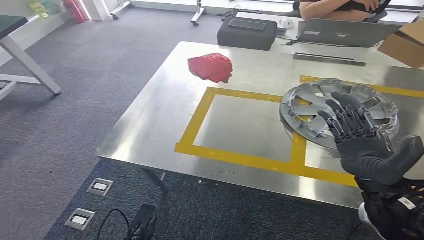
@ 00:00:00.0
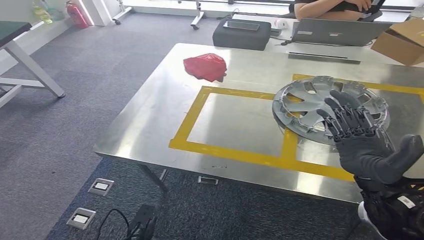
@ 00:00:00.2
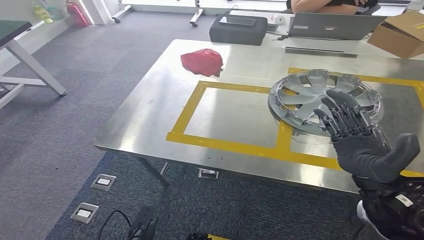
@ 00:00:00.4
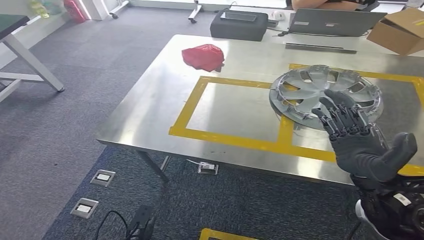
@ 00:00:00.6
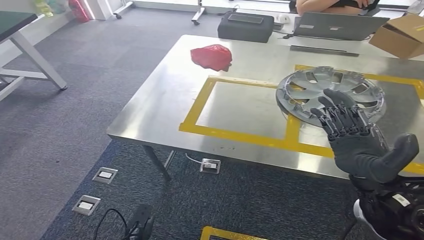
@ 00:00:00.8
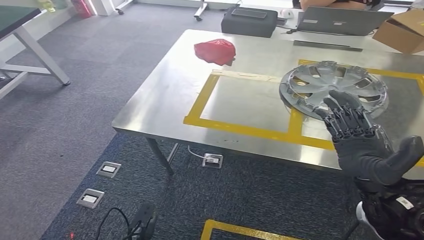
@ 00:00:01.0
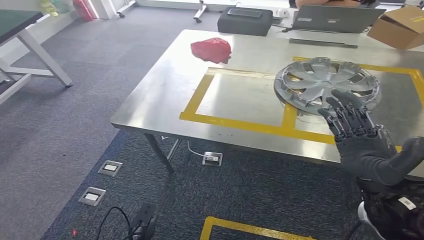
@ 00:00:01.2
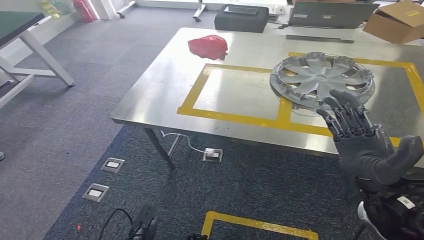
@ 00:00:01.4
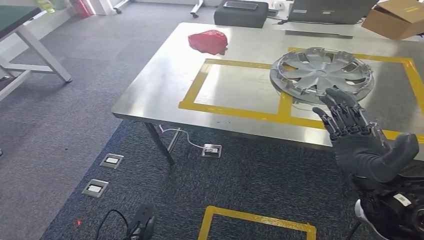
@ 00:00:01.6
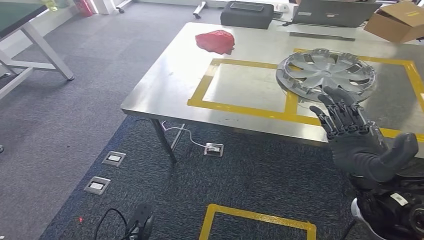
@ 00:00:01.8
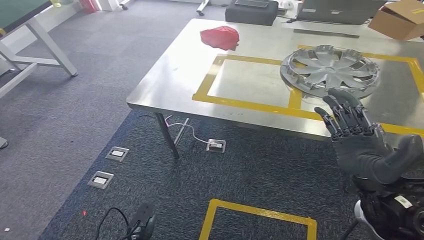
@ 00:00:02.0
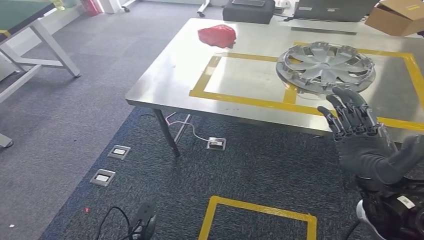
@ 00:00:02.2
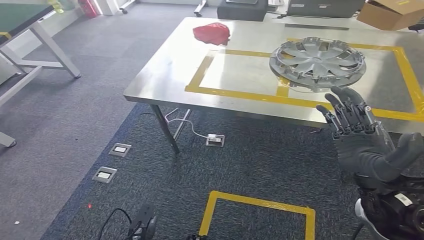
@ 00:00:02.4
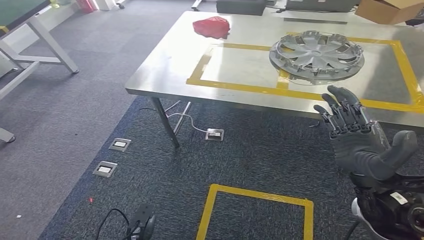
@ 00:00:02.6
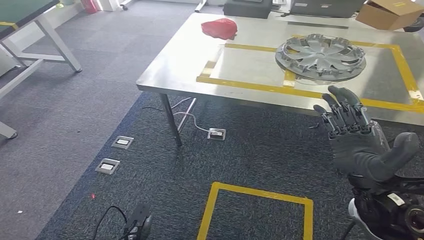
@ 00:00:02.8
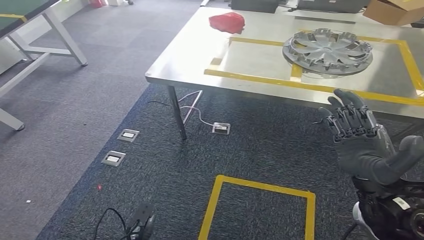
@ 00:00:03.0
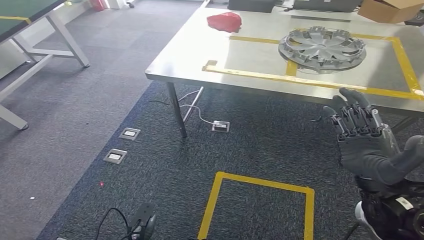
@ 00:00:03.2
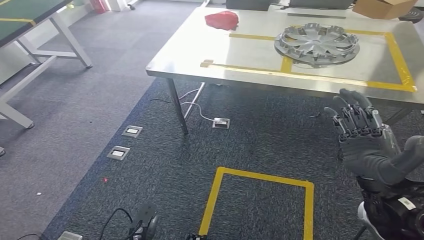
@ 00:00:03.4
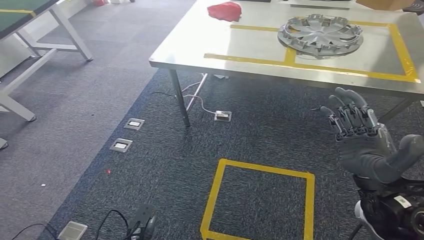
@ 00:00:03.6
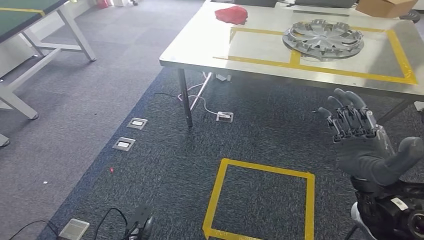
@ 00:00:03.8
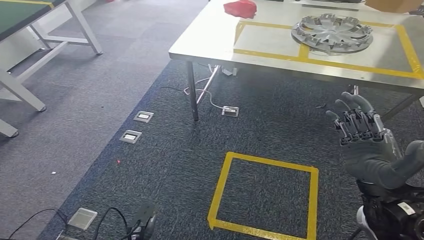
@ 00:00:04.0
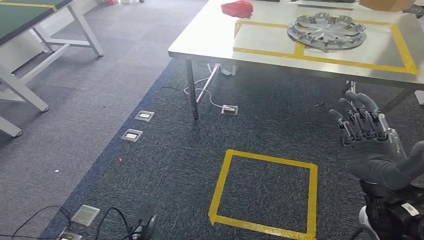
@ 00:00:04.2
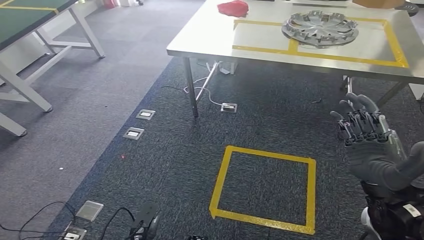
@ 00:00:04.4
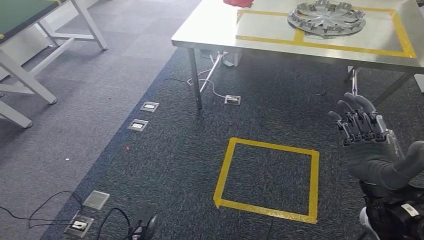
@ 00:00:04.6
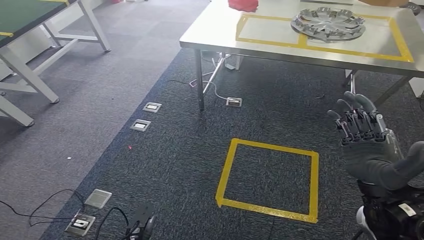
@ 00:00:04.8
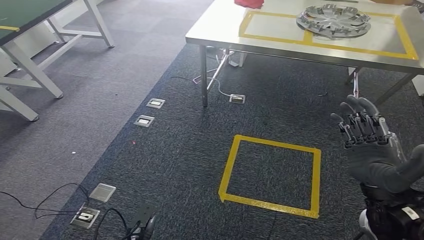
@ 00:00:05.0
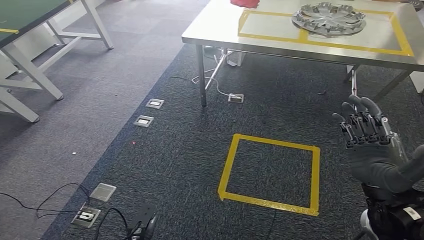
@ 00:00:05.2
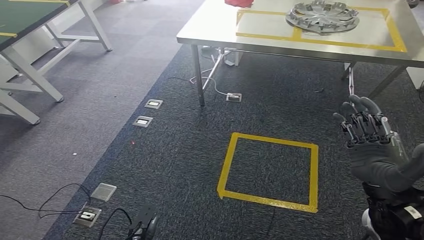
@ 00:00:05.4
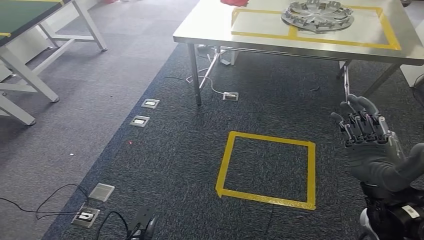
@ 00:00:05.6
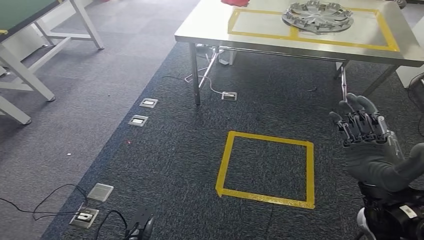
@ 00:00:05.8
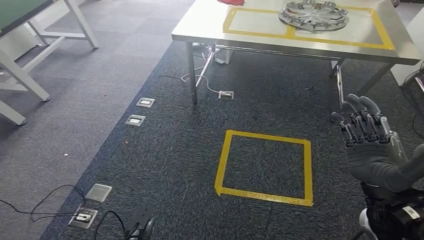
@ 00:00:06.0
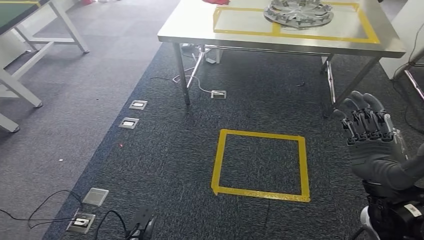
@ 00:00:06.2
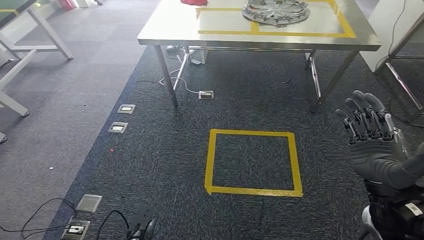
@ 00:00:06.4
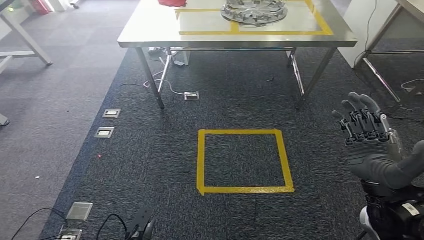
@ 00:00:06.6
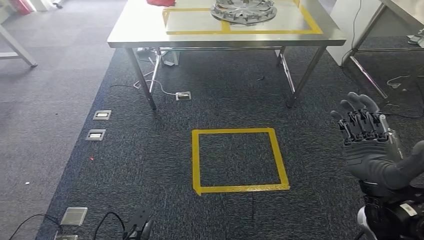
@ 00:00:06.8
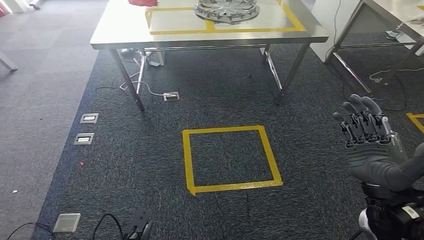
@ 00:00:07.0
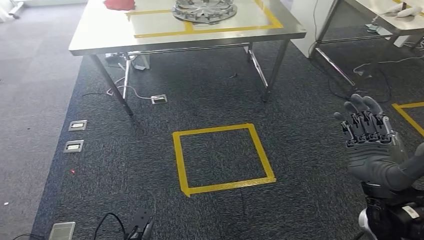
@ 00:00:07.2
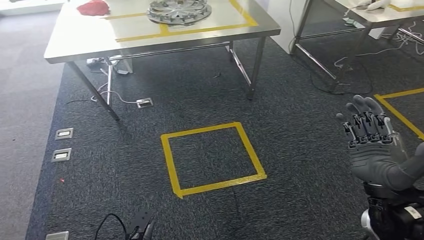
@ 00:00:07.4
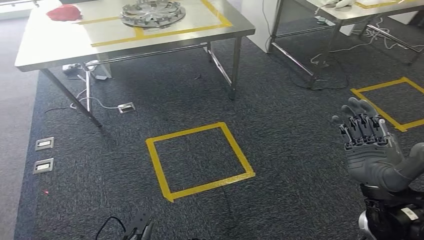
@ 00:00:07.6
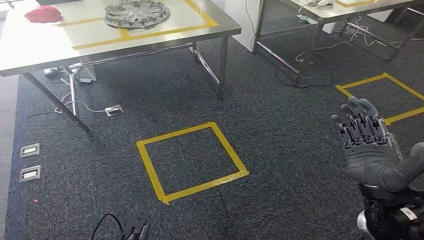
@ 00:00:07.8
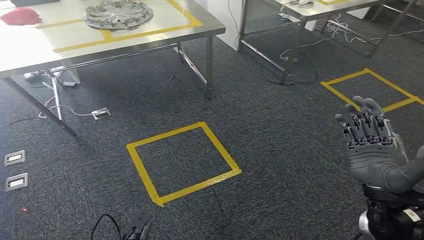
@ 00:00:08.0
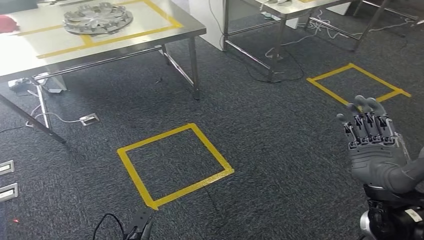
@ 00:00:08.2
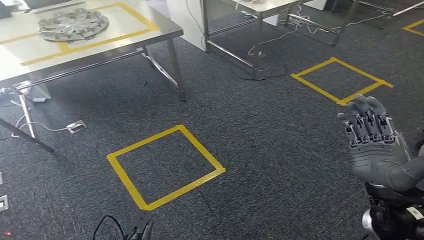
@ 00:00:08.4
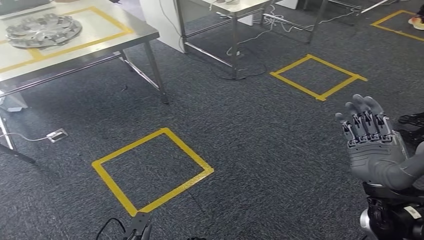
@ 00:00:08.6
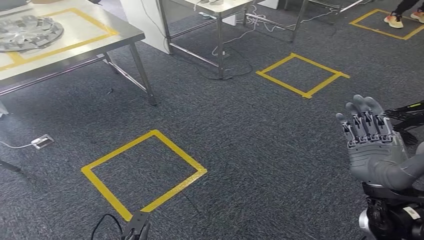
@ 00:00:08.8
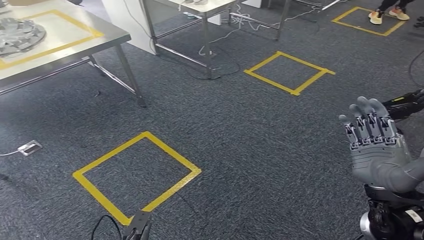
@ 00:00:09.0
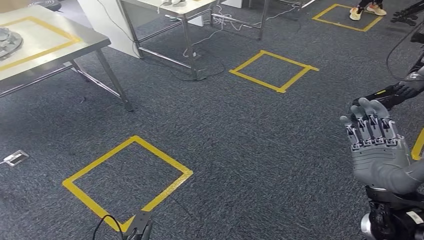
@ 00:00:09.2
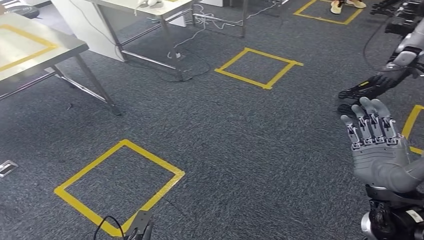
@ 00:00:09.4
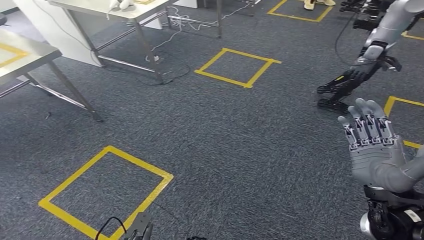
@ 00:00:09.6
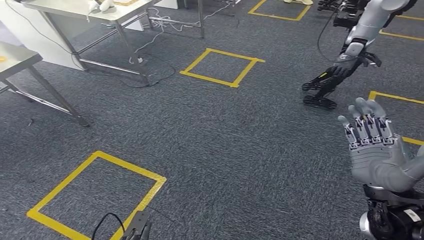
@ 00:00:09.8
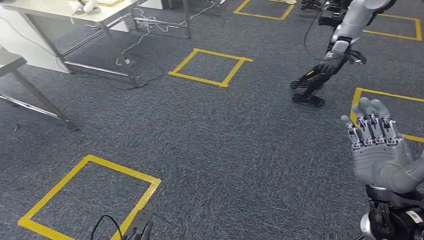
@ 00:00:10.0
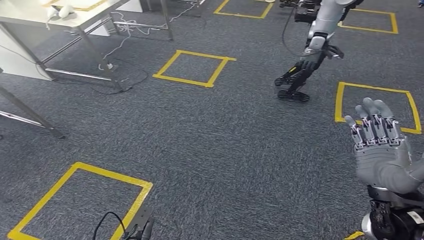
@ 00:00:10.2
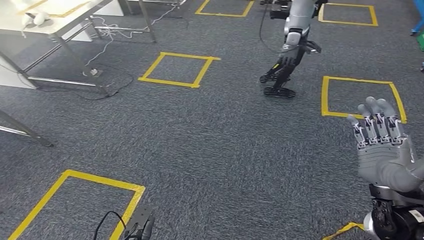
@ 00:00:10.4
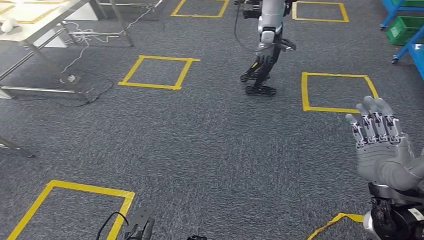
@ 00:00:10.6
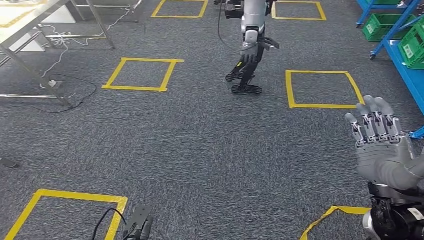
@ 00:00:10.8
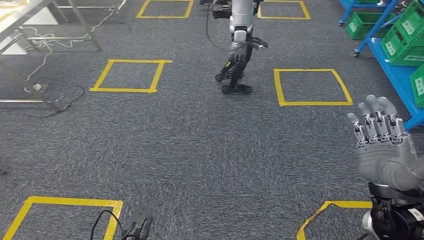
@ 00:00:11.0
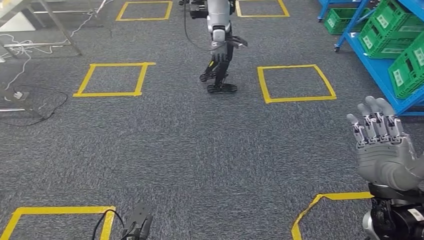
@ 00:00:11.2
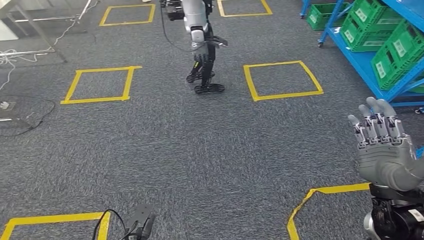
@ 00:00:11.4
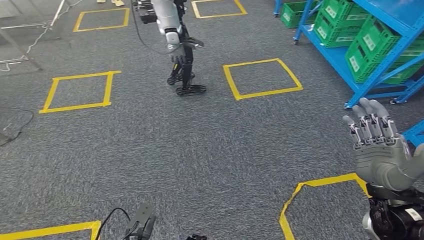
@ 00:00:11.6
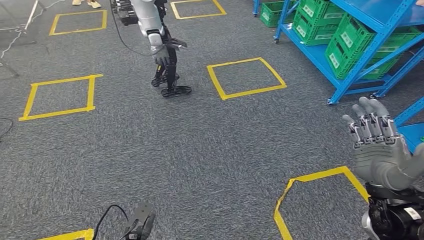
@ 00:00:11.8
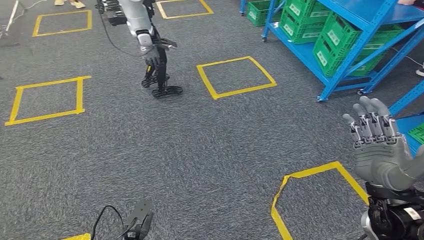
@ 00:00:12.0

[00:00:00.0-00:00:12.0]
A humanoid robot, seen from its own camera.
Step, 00:00:00.0 to 00:00:06.0: Insert the small component into the corresponding slot on the workbench.

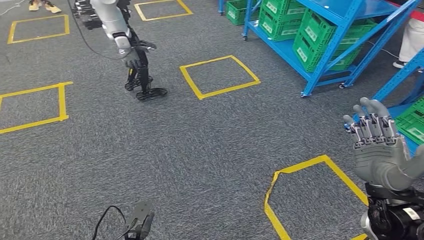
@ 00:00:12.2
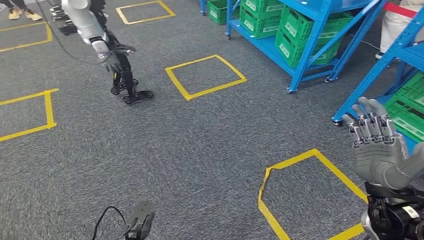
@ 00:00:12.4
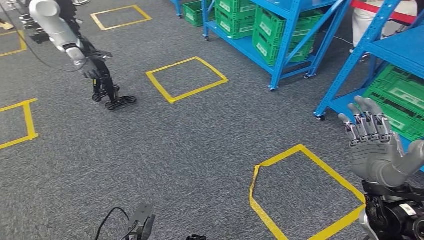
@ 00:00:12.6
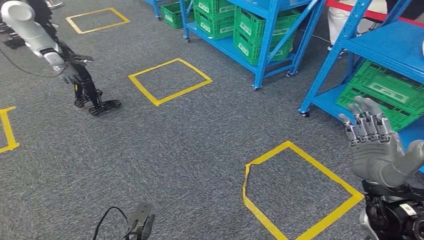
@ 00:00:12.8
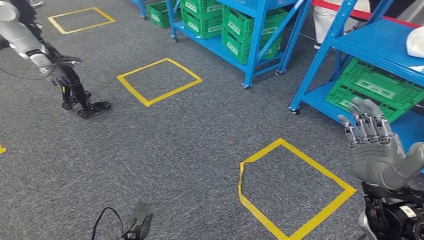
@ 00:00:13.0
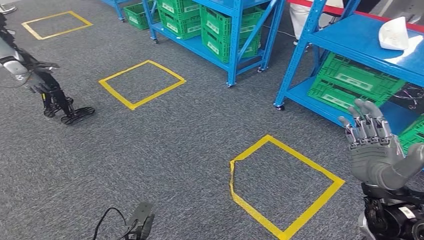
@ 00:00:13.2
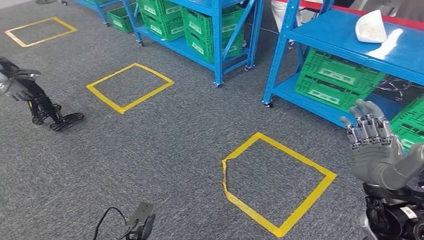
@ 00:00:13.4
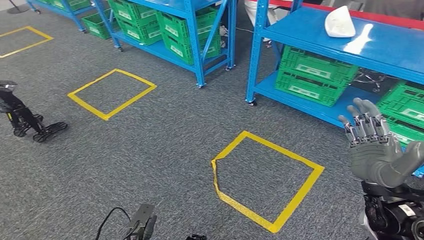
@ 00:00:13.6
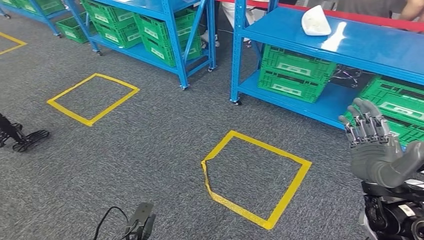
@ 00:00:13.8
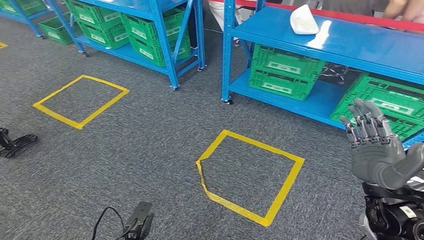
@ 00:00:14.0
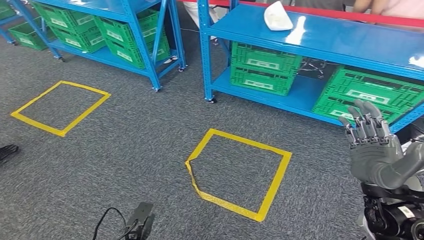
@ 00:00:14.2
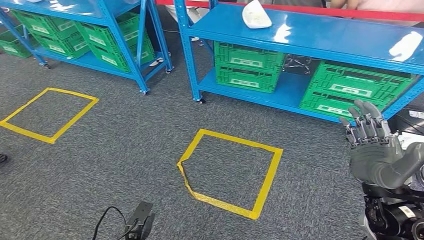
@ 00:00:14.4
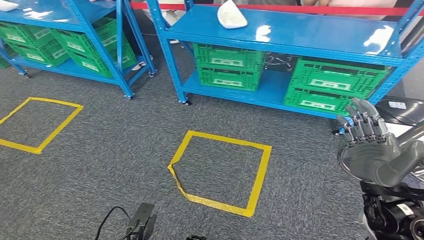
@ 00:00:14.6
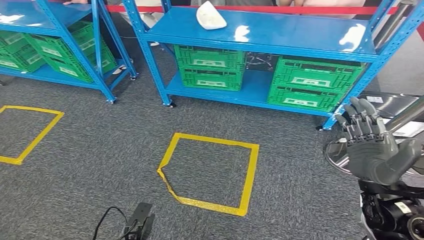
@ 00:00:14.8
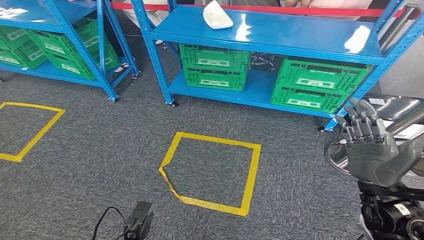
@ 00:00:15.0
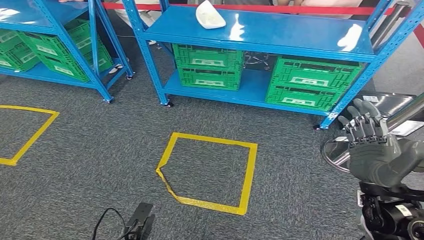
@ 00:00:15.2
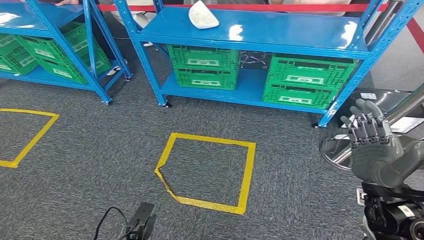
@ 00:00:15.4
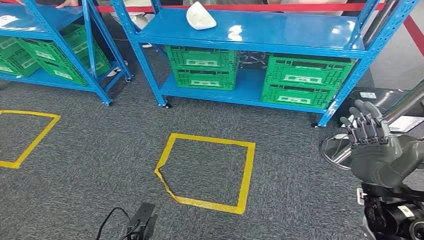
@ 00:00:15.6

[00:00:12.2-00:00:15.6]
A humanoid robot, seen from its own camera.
Step, 00:00:12.2 to 00:00:15.4: Move to the initial position at the workbench.
